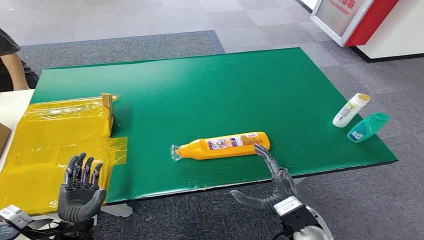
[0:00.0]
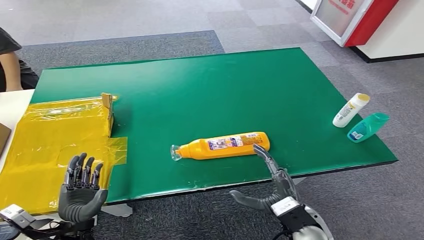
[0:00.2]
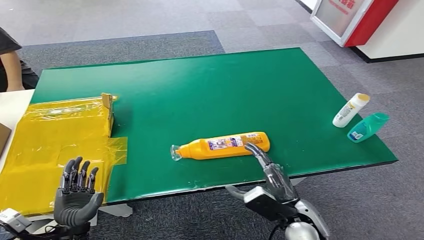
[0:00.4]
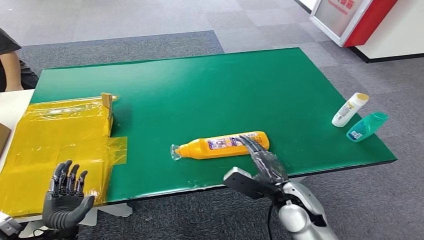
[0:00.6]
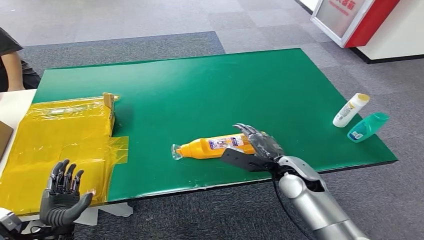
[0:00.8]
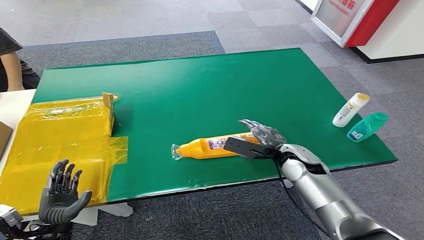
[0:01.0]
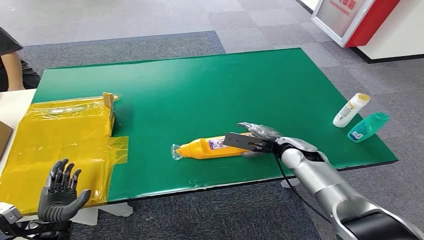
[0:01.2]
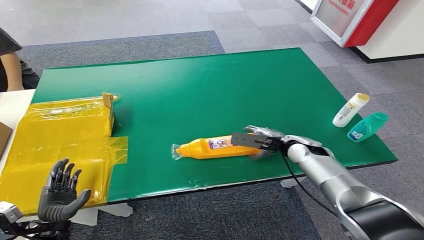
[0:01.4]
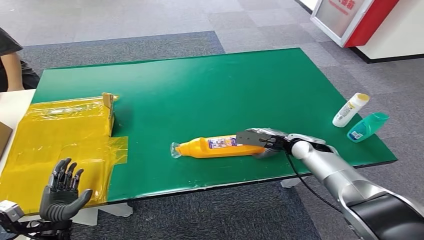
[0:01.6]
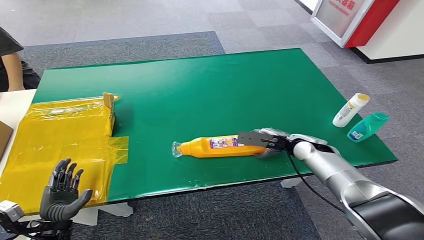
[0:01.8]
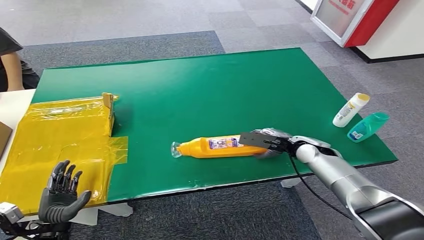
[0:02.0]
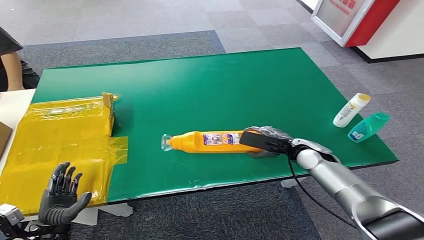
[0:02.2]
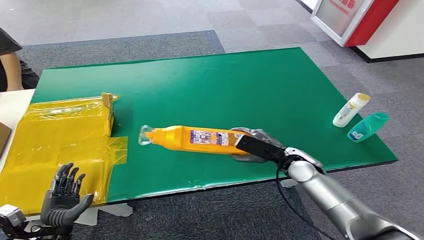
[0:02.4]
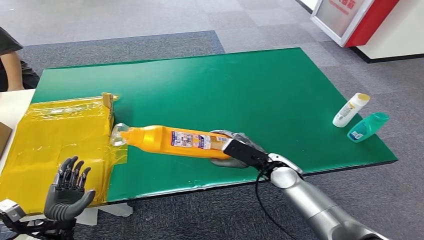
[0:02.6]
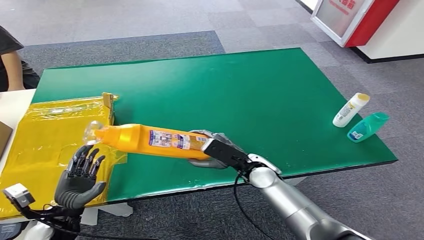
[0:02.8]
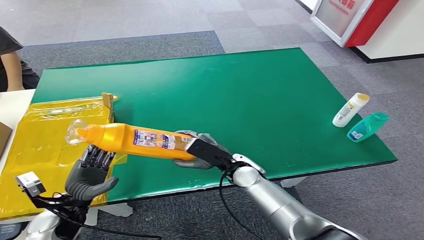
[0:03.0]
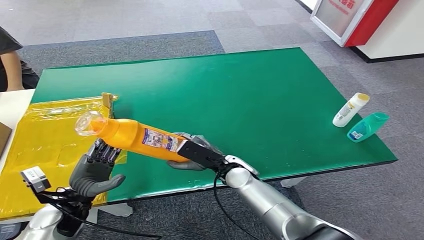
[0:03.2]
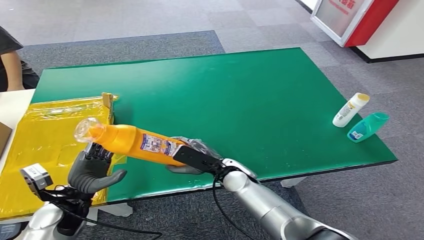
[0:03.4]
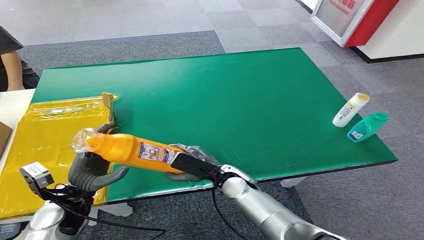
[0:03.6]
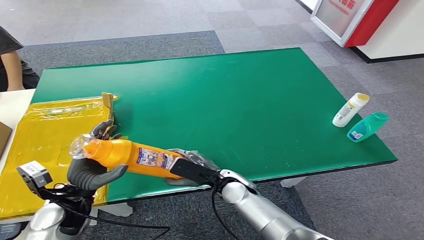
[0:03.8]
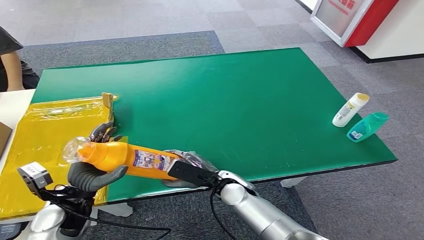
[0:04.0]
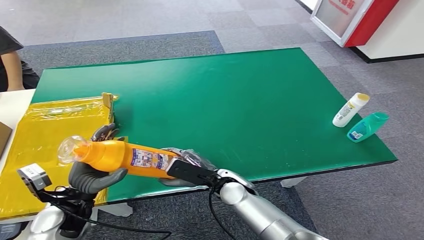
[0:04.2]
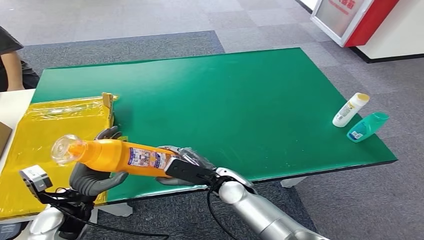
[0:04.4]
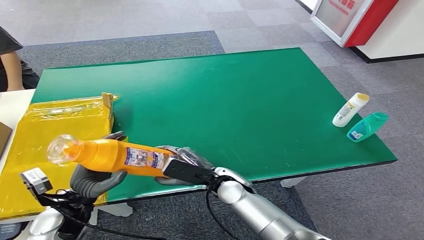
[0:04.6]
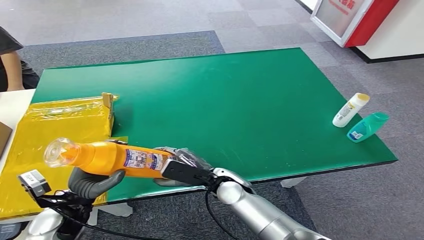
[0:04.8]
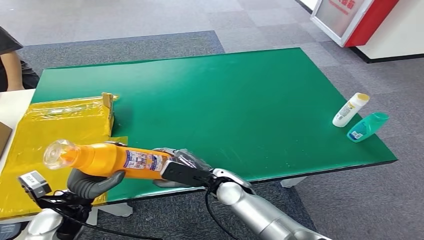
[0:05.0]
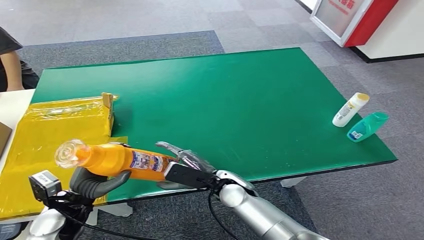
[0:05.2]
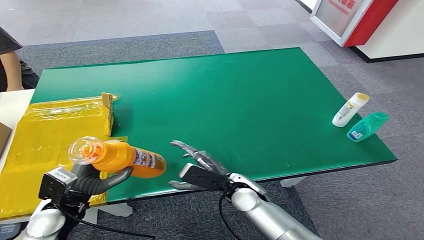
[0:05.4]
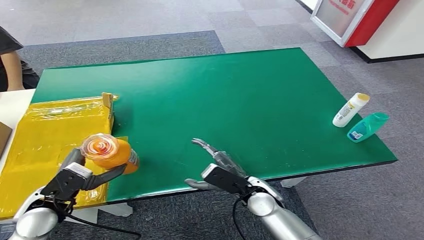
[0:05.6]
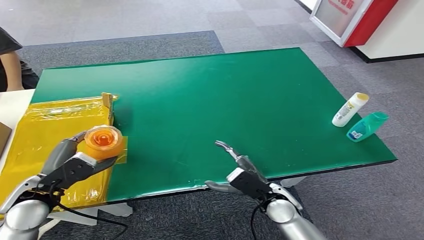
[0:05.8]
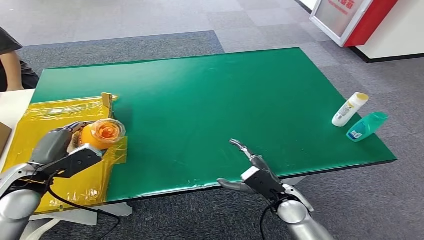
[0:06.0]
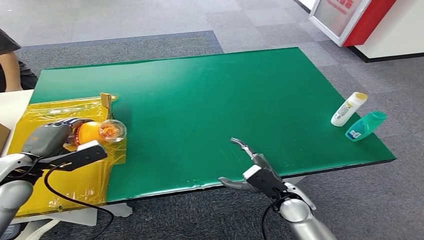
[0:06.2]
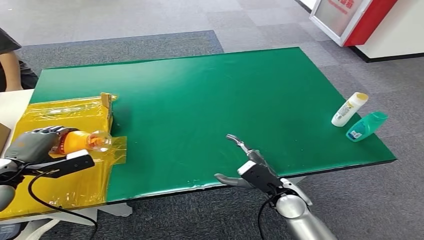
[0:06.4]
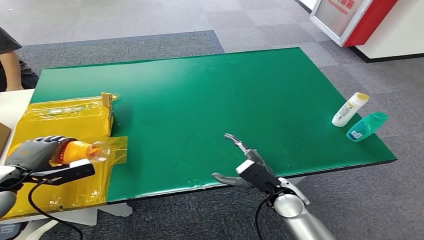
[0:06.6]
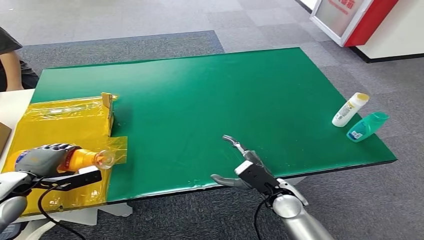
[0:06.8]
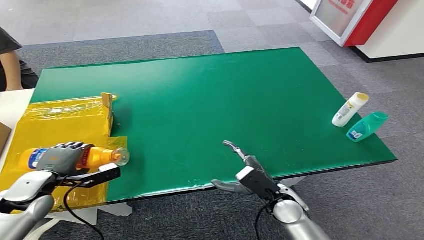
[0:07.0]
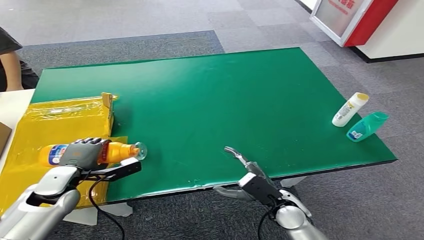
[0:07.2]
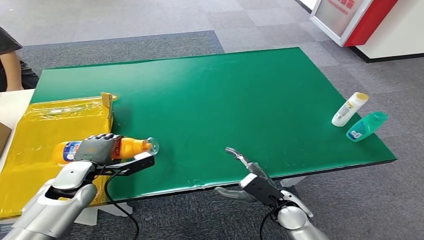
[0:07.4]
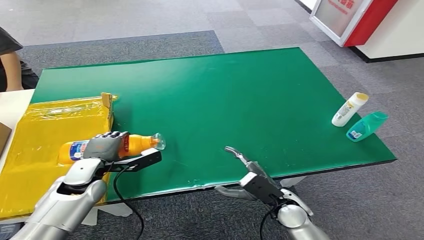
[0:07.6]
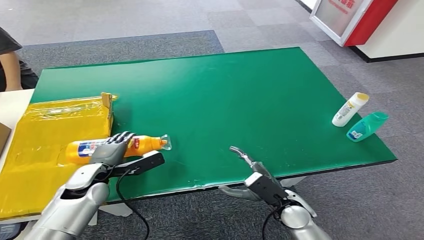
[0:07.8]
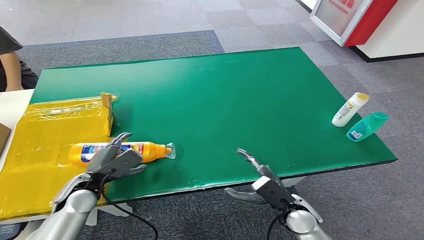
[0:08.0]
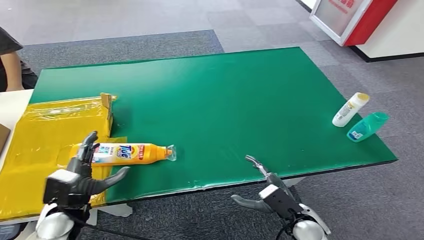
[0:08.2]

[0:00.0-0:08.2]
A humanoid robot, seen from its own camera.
Step, 0:00.0 to 0:02.6: Pick up the bottle from the table.
Step, 0:02.8 to 0:08.0: Turn the bottle to the front side.
0:03.2 to 0:05.0: The hands make only small movements.
0:05.0 to 0:06.6: The left hand is displaced to the left, upward and forward by about 15 cm. The right hand moves to the right, roughly 10 cm.
0:06.6 to 0:08.2: The right hand goes some 5 cm backward, while the left hand is displaced to the right, downward and backward by roughly 15 cm.
